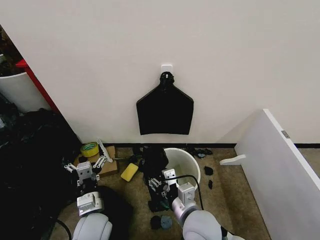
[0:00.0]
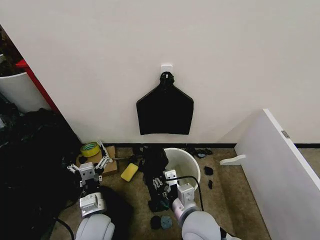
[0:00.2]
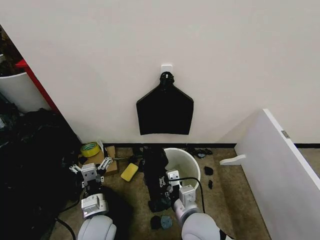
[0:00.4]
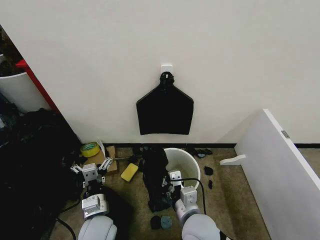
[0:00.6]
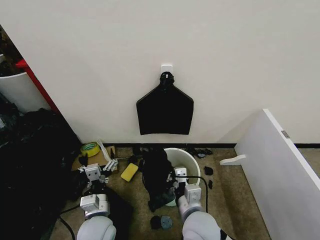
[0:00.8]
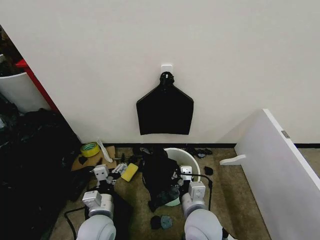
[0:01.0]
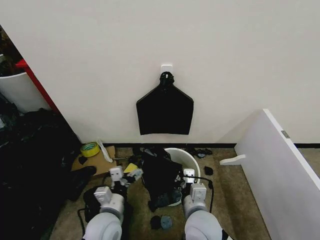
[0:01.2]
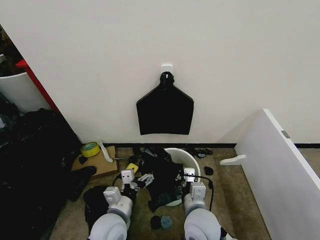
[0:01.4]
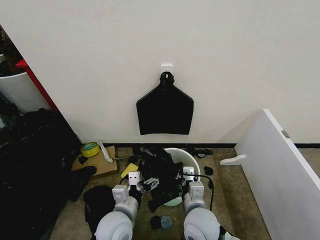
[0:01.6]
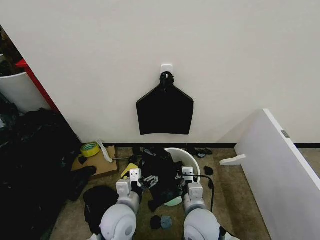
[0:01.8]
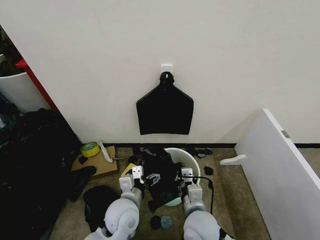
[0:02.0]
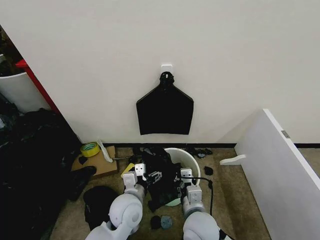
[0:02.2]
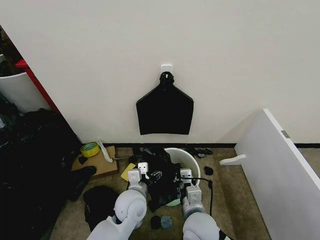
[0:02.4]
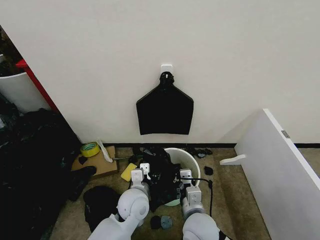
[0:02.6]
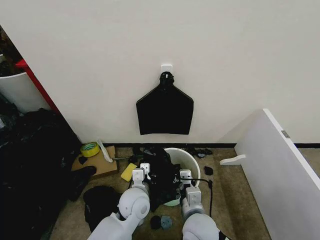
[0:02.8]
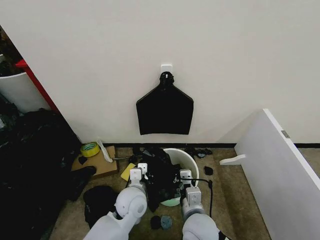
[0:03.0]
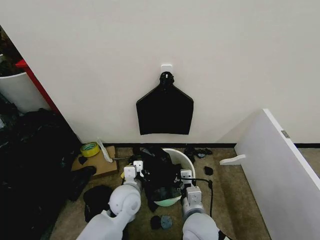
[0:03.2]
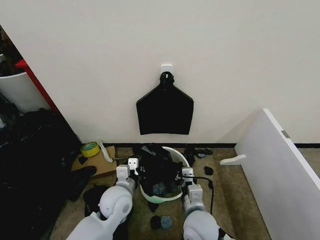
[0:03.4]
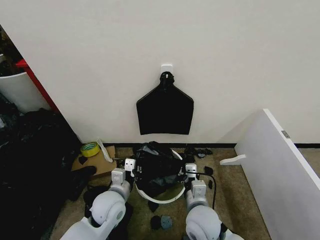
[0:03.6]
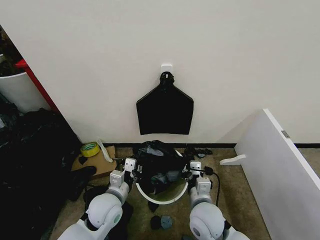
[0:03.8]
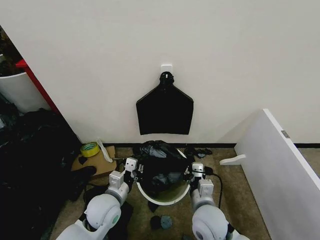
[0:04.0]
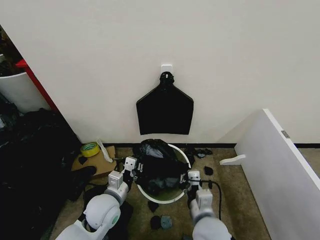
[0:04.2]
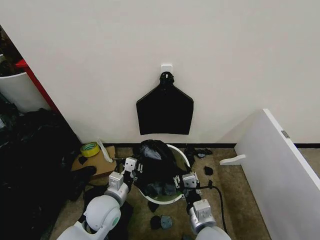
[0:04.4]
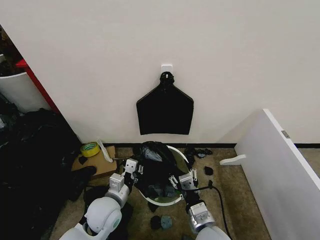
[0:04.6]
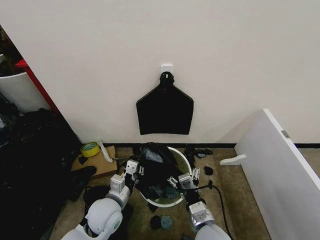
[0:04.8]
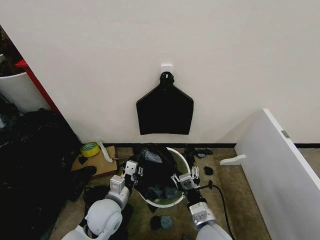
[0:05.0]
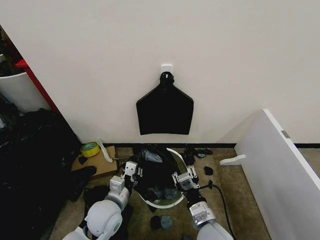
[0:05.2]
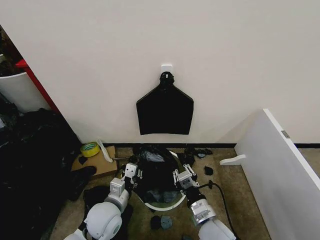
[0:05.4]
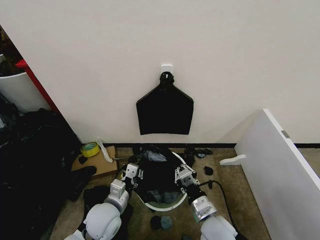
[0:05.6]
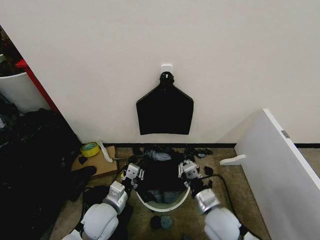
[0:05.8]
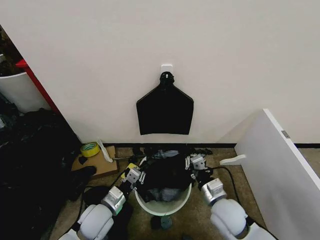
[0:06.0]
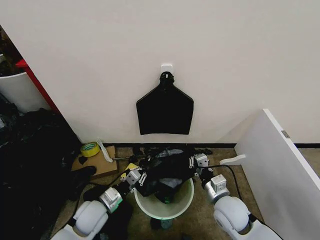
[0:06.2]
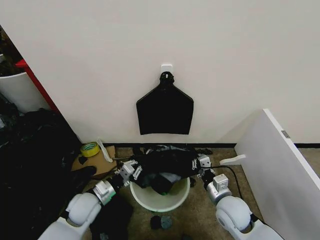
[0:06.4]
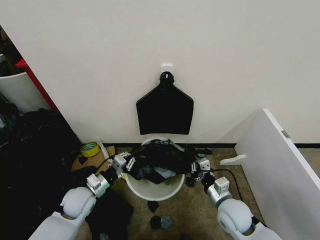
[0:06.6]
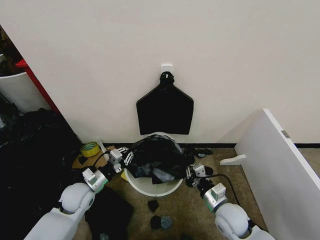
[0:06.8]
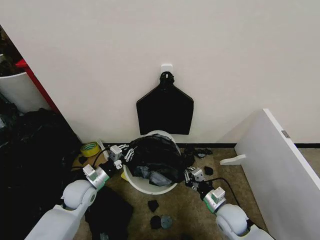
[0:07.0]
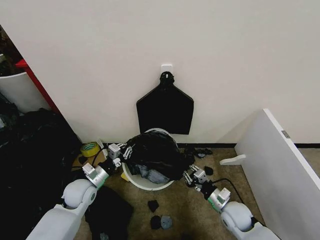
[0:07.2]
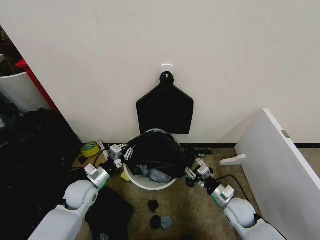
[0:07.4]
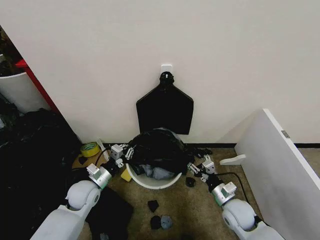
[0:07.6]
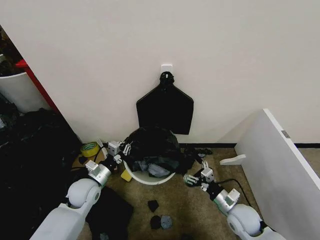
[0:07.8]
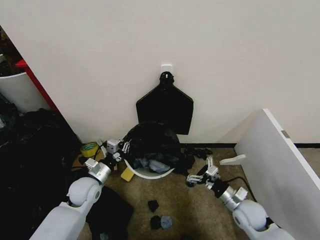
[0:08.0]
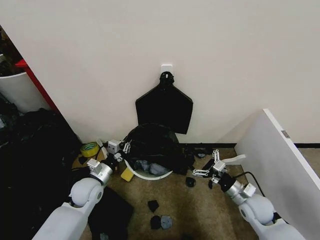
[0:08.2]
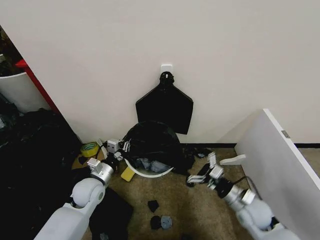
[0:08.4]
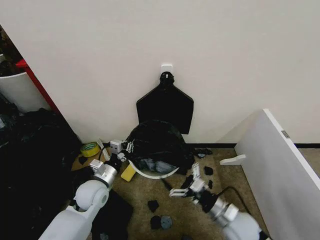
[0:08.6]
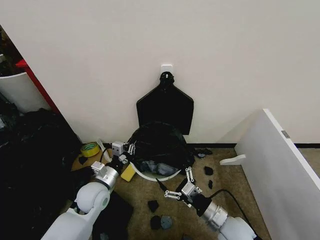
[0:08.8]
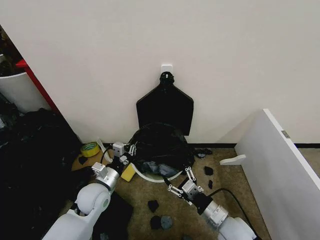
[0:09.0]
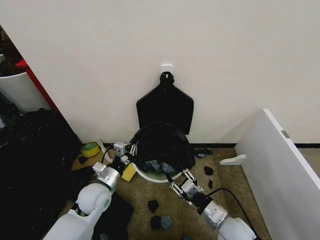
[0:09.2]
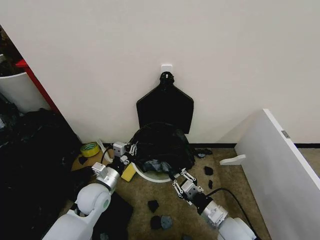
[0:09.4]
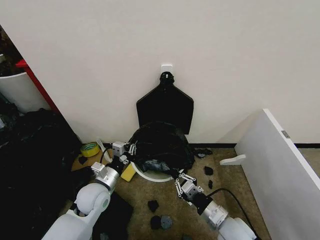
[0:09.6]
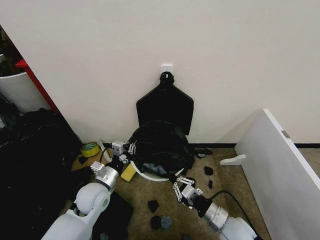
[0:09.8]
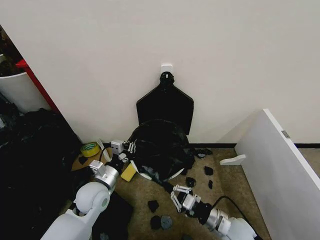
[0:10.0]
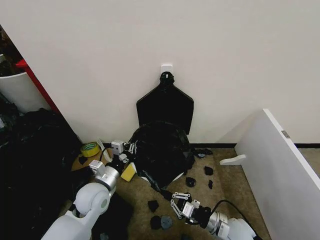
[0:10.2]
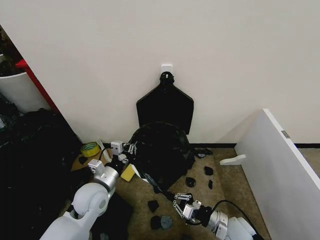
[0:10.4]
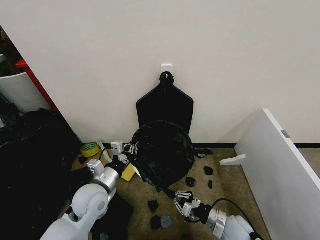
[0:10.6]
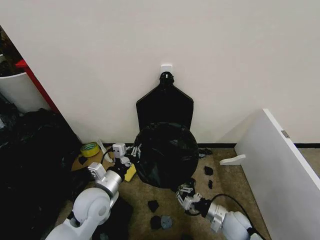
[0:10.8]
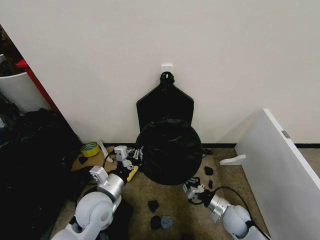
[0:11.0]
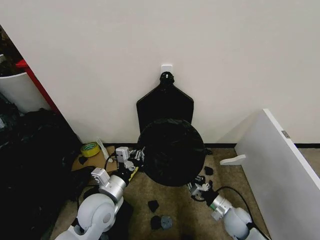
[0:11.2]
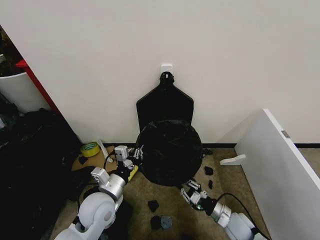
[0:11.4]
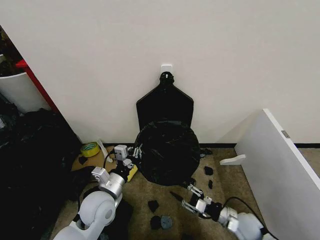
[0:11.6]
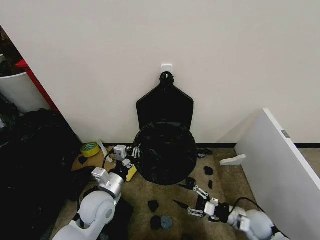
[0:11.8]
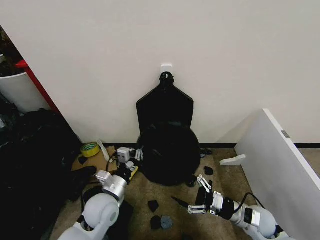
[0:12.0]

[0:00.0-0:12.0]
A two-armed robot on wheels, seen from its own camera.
Task of the whole recording: Place the garbage bag over the trash bin.
0:00.0 to 0:01.6: The left gripper shifts approximately 5 cm to the right. Meanwhile the right gripper closes its fingers.
0:01.6 to 0:03.0: The left gripper moves forward, some 10 cm, and closes.
0:03.0 to 0:04.4: The left gripper heads to the left, covering some 10 cm; the right gripper opens its fingers.
0:04.4 to 0:06.0: The right gripper moves forward and to the right, approximately 10 cm, and closes.
0:06.0 to 0:07.6: The left gripper is displaced forward and to the left by roughly 10 cm. The right gripper goes roughly 10 cm to the right and downward, and opens.
0:07.6 to 0:09.0: The right gripper travels backward by approximately 5 cm; the left gripper changes place by roughly 5 cm.
0:09.0 to 0:10.4: The right gripper is displaced downward by some 5 cm, and closes up.
0:10.4 to 0:12.0: The right gripper travels to the right by approximately 5 cm, and opens.

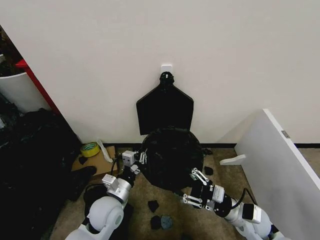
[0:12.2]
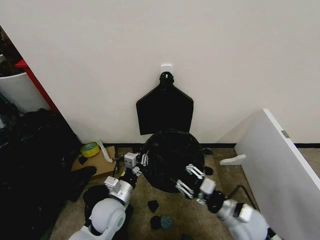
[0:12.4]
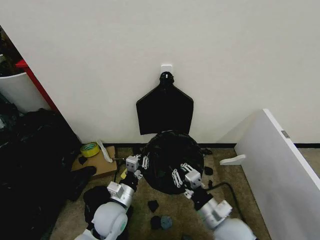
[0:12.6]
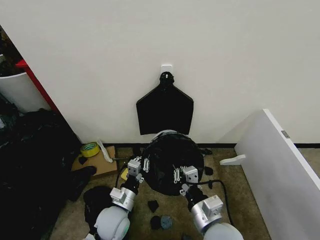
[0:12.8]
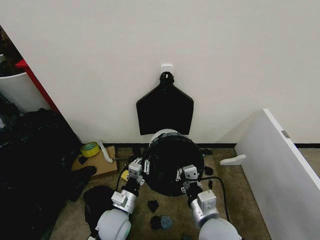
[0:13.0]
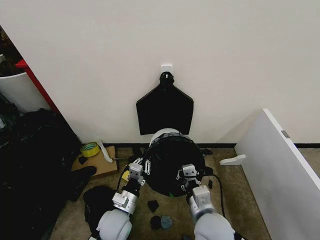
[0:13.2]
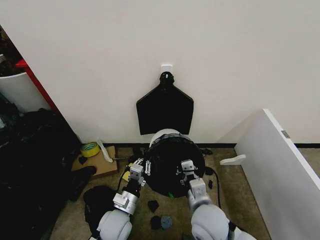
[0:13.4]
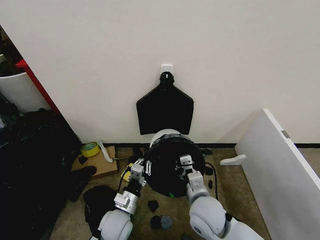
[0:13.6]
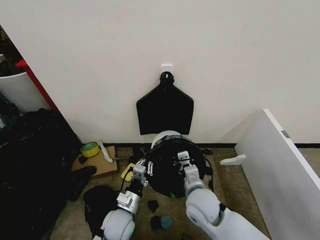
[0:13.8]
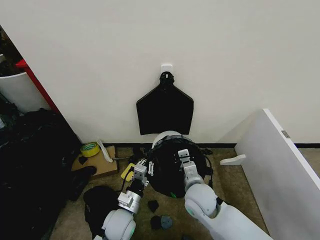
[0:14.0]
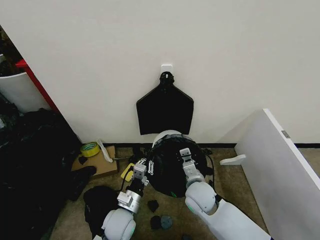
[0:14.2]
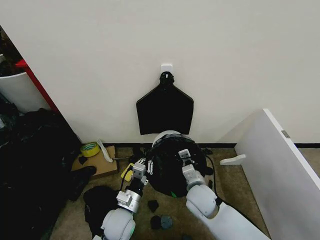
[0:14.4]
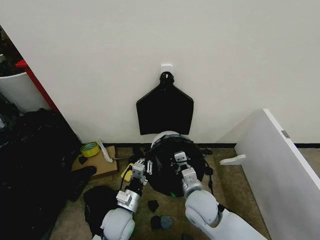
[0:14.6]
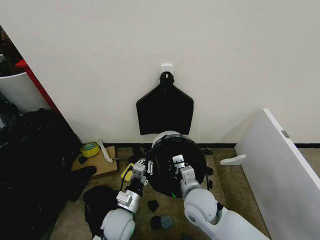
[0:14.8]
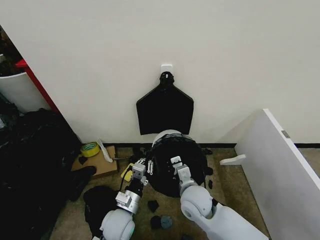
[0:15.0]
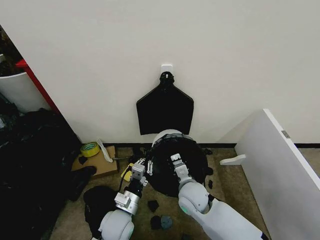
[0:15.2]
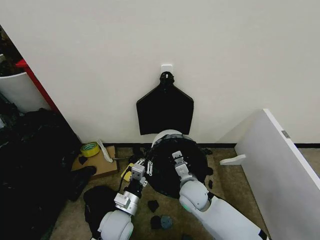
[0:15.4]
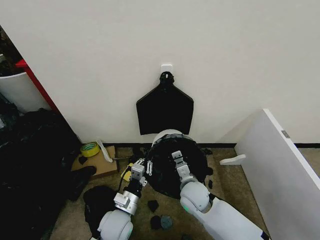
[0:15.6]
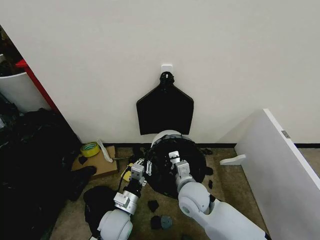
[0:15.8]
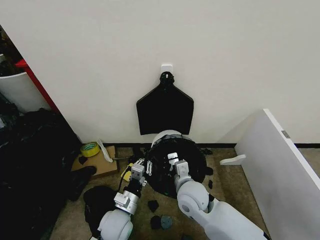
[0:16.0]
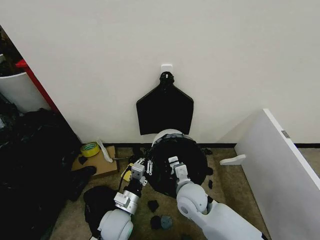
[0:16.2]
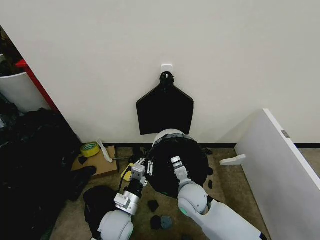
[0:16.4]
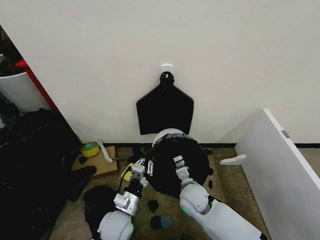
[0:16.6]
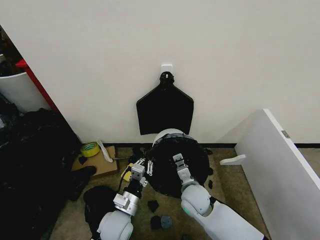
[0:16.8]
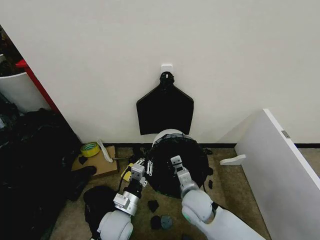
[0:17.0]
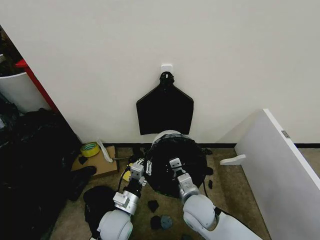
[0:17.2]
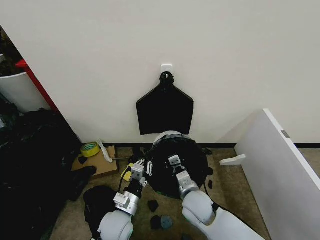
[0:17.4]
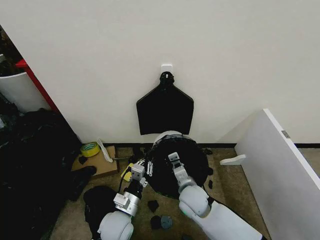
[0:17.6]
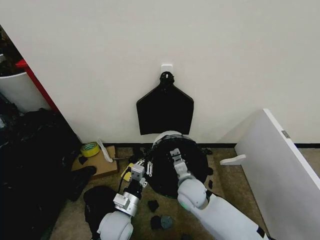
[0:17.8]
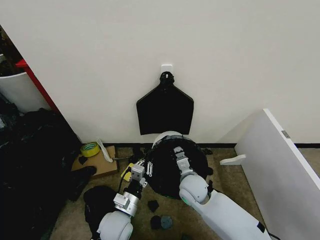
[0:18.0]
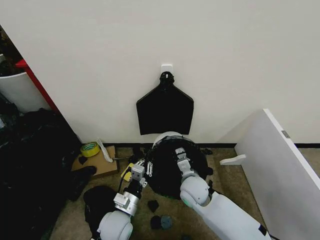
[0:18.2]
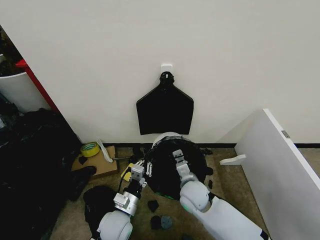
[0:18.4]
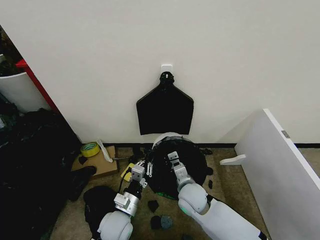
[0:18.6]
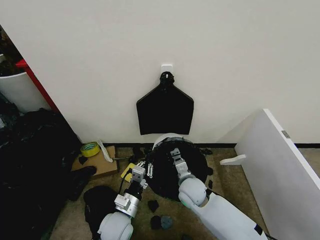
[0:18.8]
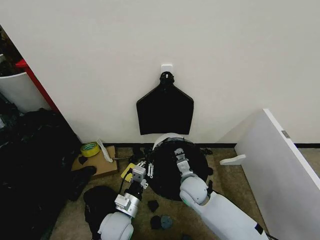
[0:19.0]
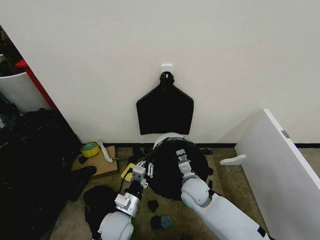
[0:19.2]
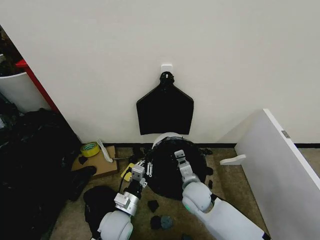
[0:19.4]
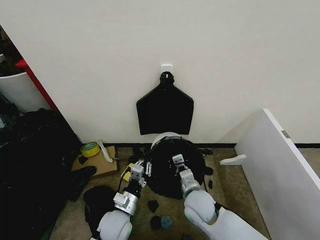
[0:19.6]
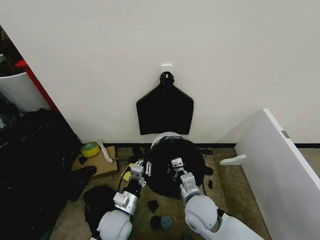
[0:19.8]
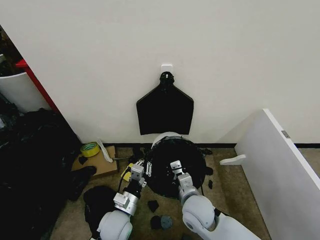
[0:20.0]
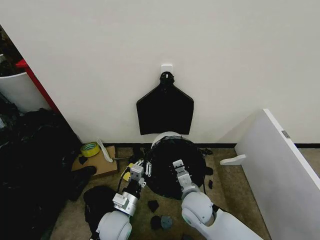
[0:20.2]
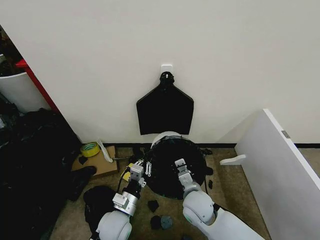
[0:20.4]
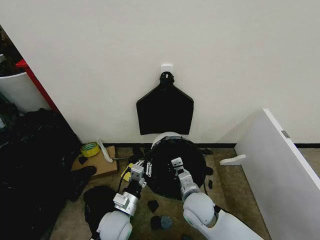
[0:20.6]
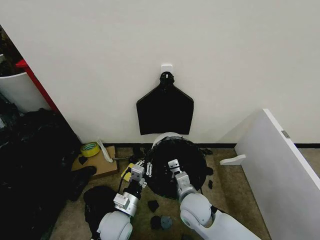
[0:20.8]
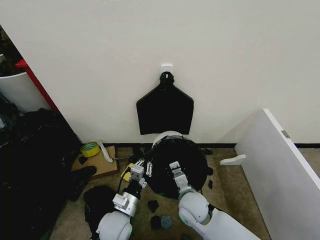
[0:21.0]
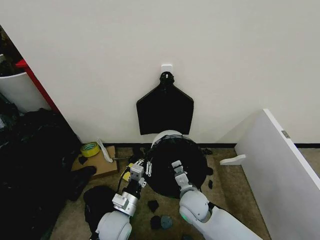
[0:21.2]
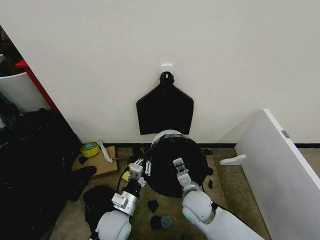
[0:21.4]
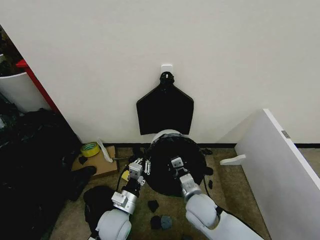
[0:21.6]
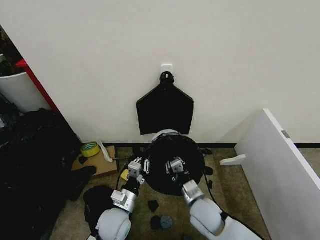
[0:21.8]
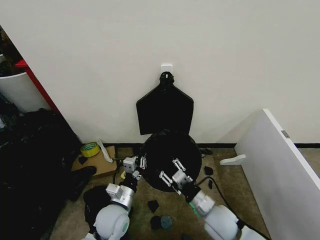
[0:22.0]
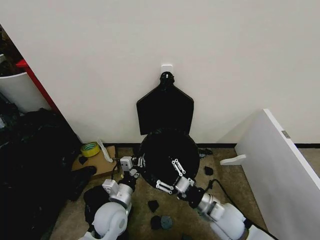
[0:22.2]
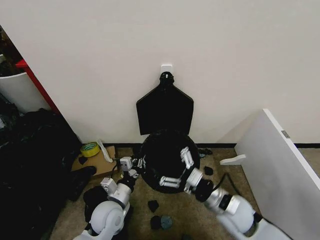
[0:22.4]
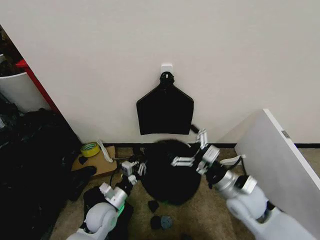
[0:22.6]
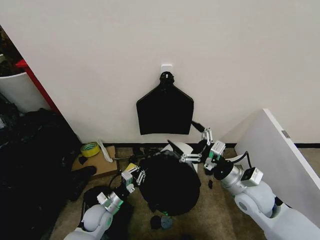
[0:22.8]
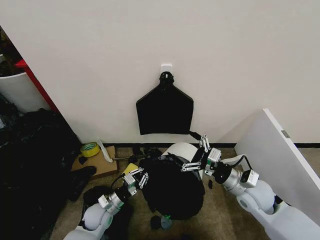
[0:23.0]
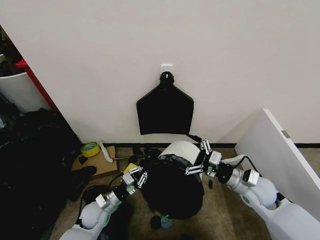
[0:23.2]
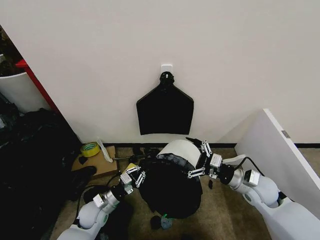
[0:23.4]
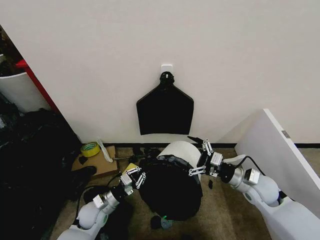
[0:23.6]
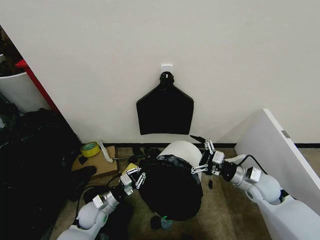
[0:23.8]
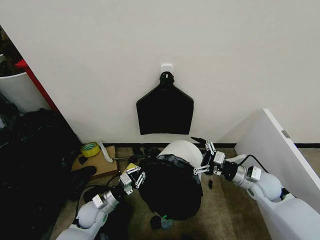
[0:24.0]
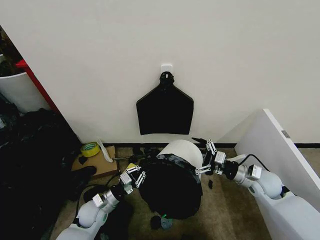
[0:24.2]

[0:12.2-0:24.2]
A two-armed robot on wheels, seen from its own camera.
Task of the whole recording: Place the garbage bag over the trash bin.
0:12.2 to 0:13.8: The left gripper shifts about 5 cm downward. Meanwhile the right gripper goes roughly 15 cm to the left, and closes its fingers.
0:13.8 to 0:15.2: The right gripper ends up approximately 5 cm from where it was.
0:15.2 to 0:16.6: There are only small adjustments of the grippers.
0:18.2 to 0:19.8: The right gripper is displaced backward by roughly 5 cm.
0:19.8 to 0:21.2: There are only small adjustments of the grippers.
0:21.2 to 0:22.6: The right gripper shifts roughly 15 cm to the right and upward, and opens its fingers; the left gripper travels to the left by roughly 5 cm.
0:22.6 to 0:24.2: The left gripper ends up some 5 cm from where it was. The right gripper goes roughly 15 cm to the right, forward and downward.
